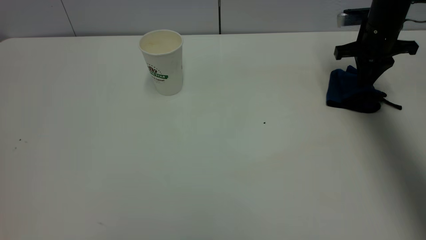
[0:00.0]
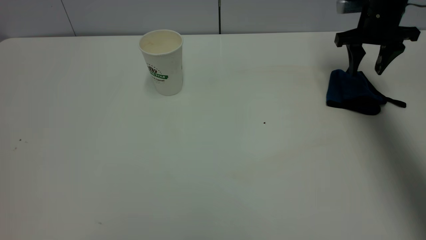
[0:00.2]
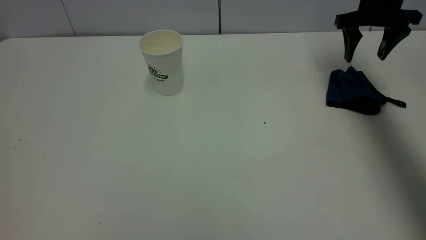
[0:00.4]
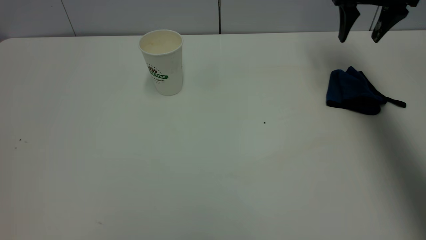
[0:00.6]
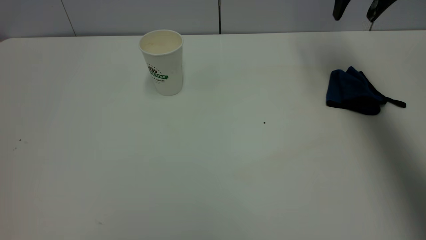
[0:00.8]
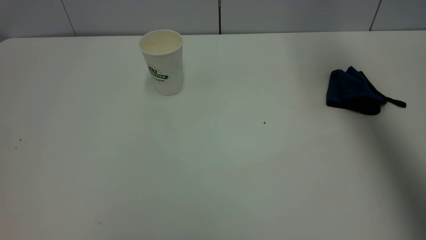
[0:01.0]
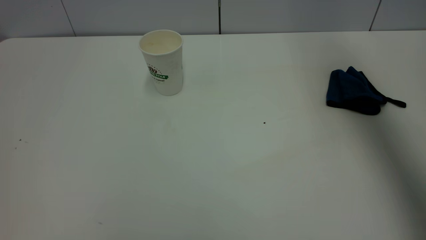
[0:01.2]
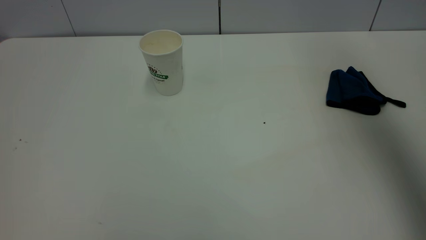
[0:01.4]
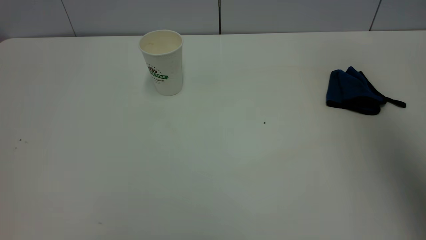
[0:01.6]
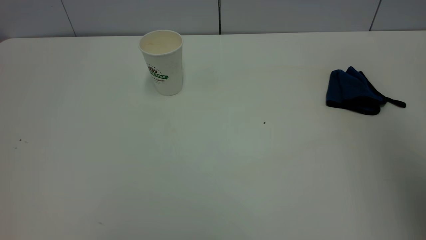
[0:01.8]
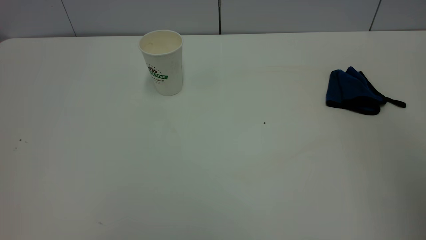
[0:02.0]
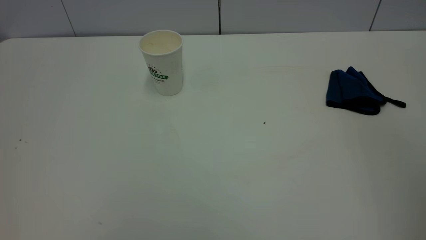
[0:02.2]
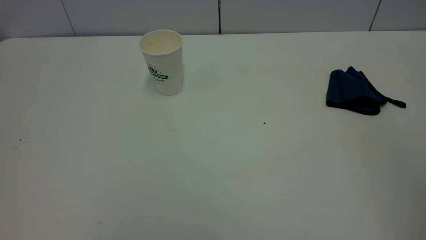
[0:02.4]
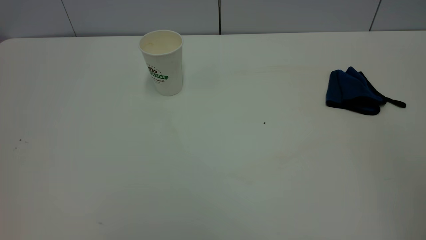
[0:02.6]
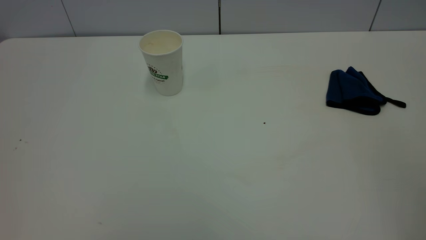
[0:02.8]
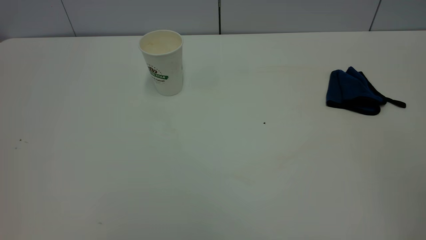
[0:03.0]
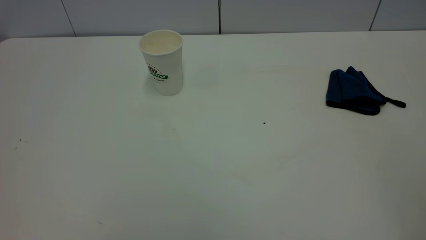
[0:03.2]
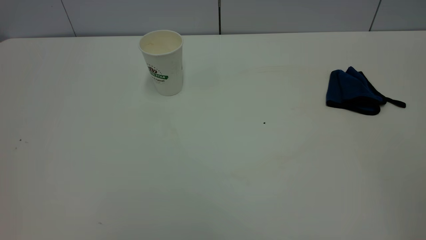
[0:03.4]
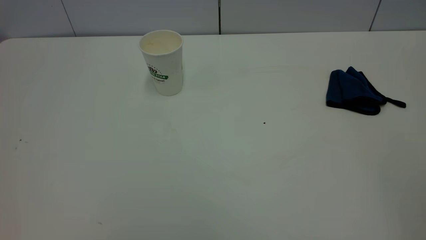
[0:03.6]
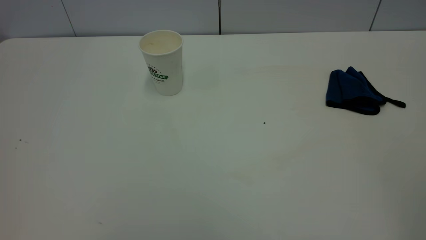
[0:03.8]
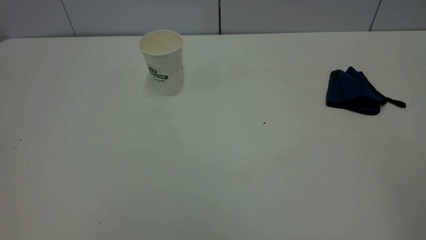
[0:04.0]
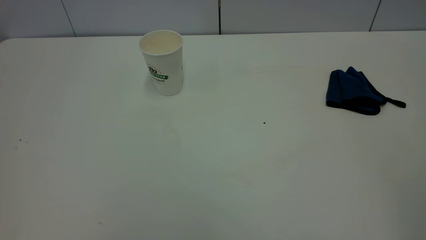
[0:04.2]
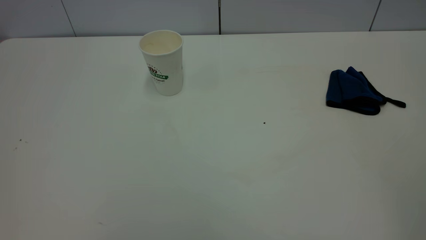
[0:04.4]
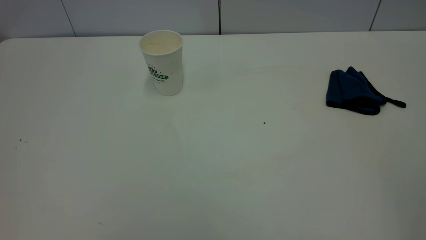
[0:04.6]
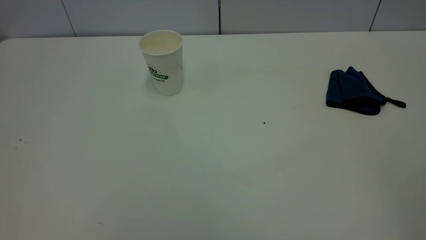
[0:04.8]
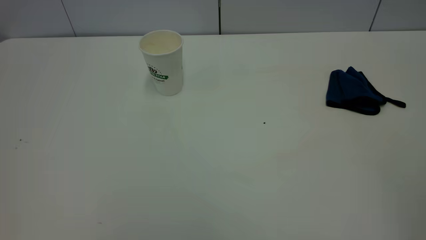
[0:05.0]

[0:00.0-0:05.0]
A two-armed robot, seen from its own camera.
Task of the whole recording: the left gripper pick up the fallen cup and place it upright, the right gripper grasp the blue rag and wipe the tea stain on the table, the right gripper put the blue rag back in its original position.
0:00.0 to 0:01.6: The right gripper travels upward and backward by about 40 cm, and opens its fingers.
0:01.6 to 0:03.4: The right gripper is displaced backward by some 25 cm.
